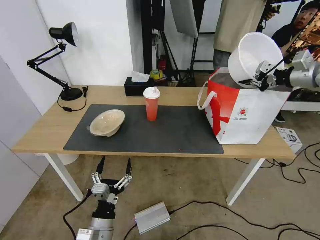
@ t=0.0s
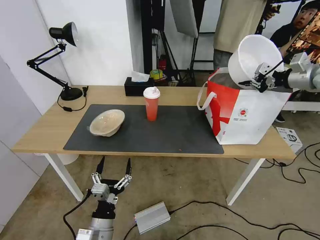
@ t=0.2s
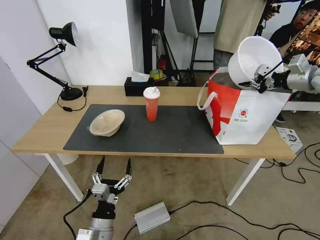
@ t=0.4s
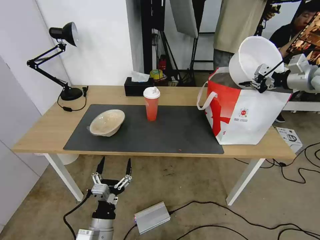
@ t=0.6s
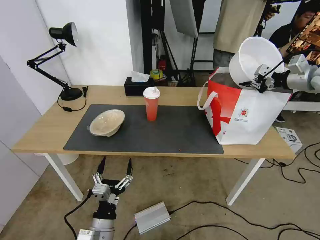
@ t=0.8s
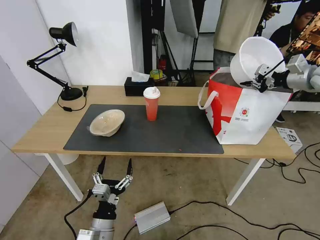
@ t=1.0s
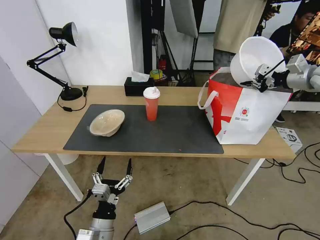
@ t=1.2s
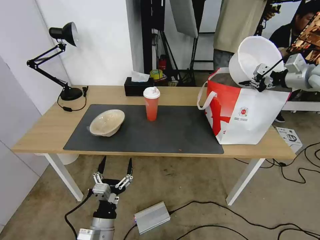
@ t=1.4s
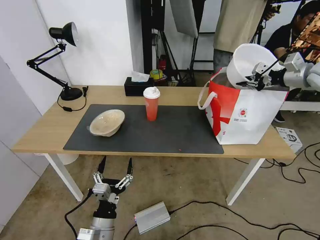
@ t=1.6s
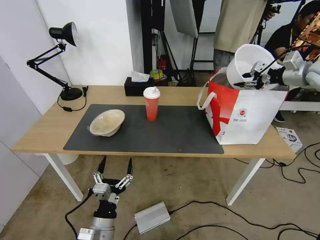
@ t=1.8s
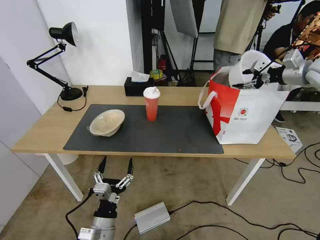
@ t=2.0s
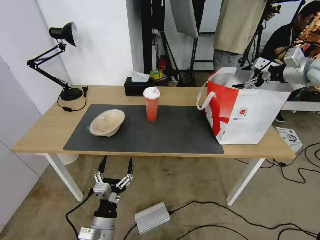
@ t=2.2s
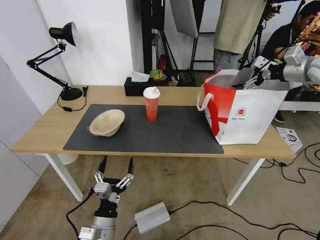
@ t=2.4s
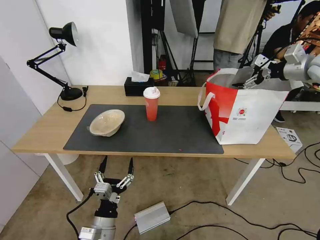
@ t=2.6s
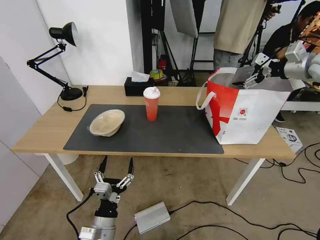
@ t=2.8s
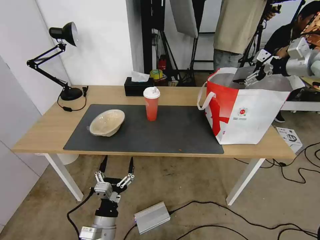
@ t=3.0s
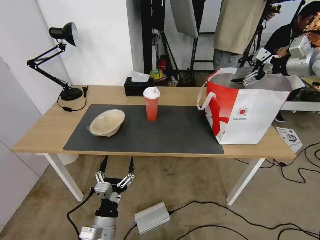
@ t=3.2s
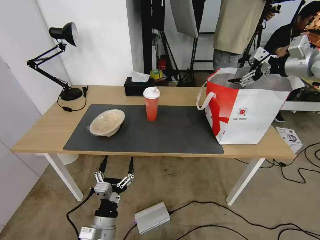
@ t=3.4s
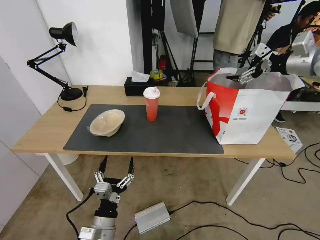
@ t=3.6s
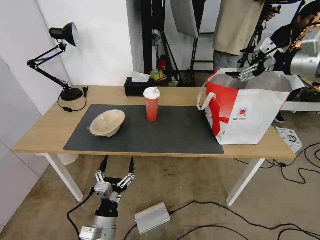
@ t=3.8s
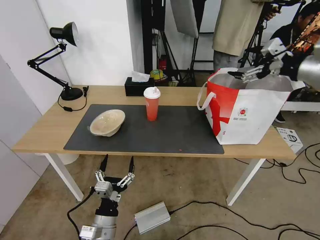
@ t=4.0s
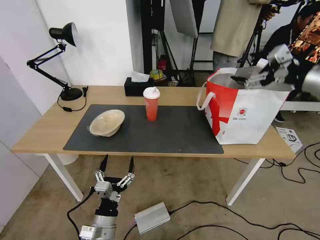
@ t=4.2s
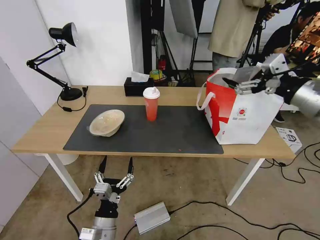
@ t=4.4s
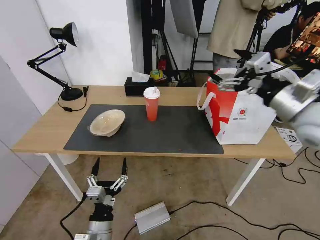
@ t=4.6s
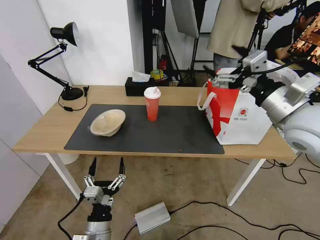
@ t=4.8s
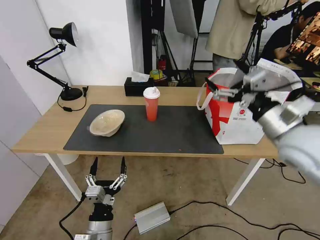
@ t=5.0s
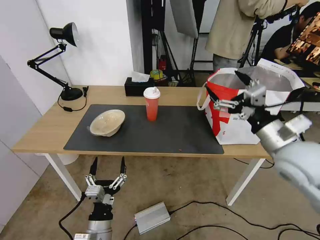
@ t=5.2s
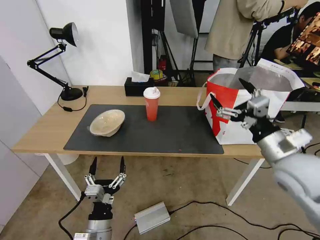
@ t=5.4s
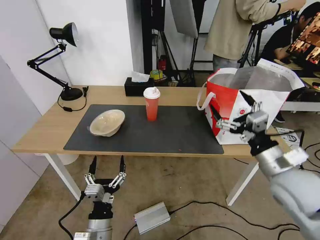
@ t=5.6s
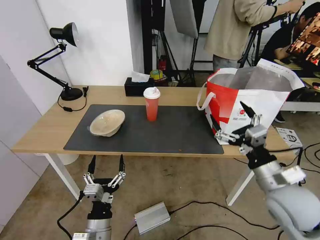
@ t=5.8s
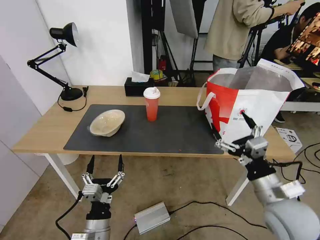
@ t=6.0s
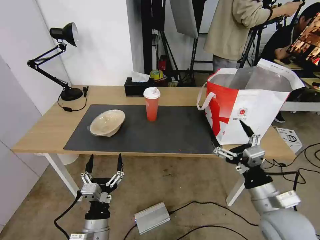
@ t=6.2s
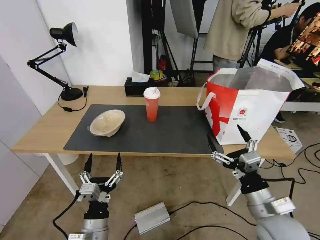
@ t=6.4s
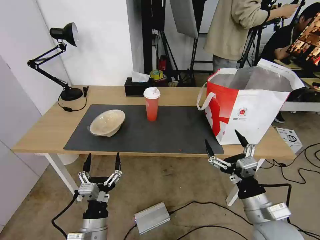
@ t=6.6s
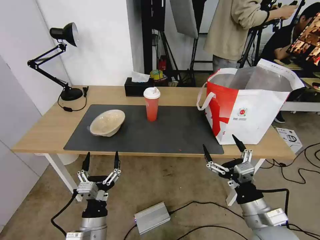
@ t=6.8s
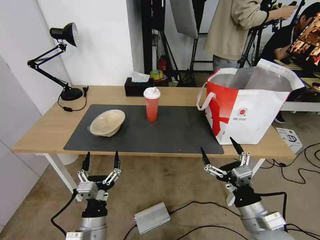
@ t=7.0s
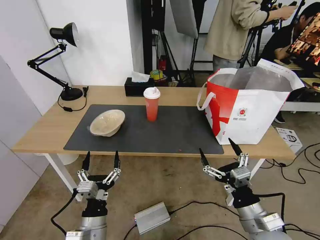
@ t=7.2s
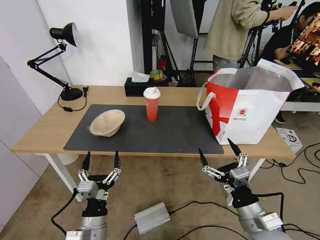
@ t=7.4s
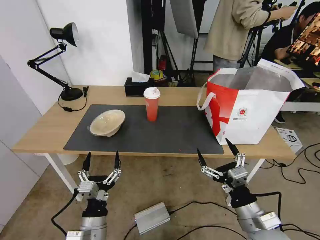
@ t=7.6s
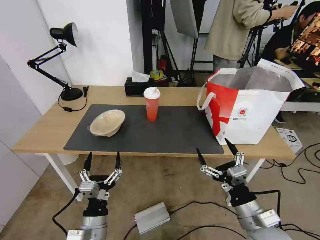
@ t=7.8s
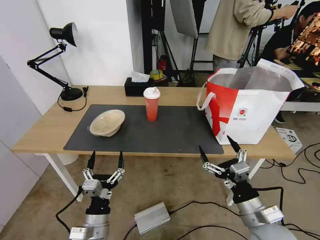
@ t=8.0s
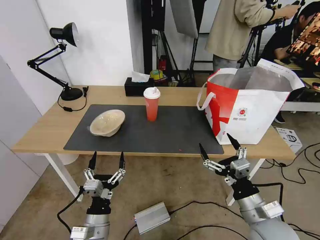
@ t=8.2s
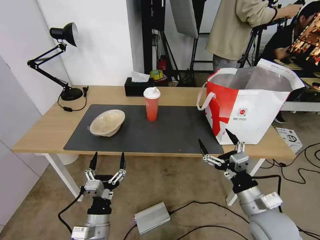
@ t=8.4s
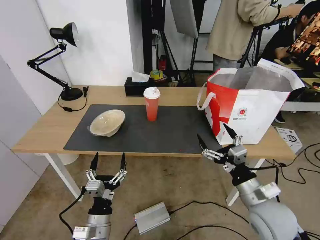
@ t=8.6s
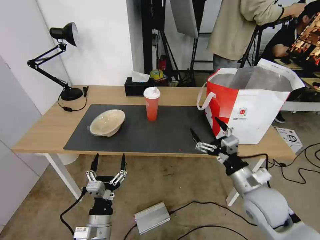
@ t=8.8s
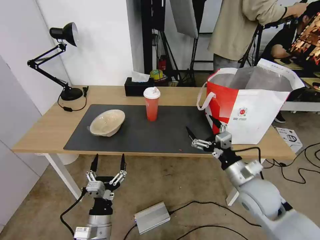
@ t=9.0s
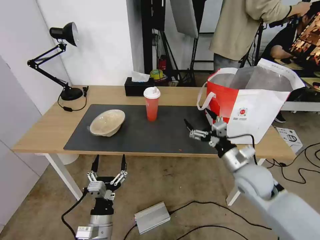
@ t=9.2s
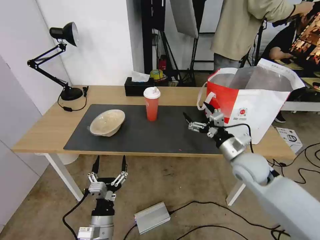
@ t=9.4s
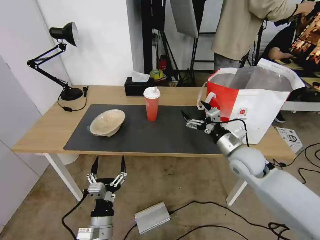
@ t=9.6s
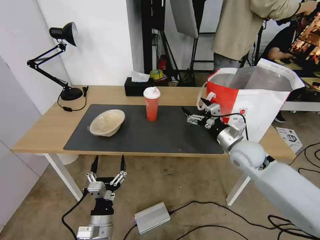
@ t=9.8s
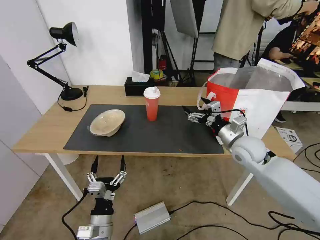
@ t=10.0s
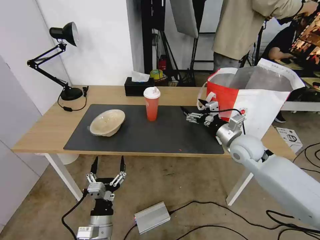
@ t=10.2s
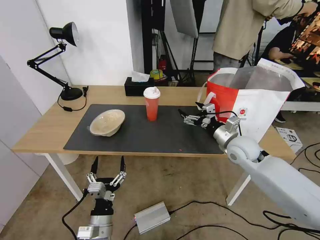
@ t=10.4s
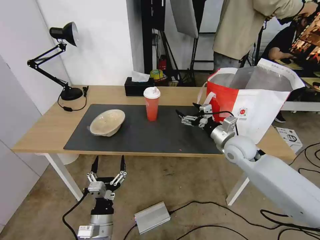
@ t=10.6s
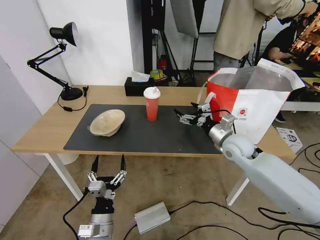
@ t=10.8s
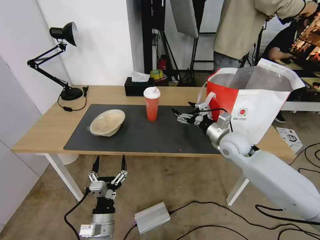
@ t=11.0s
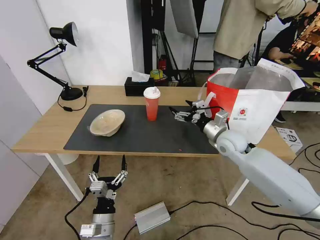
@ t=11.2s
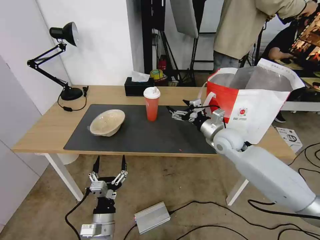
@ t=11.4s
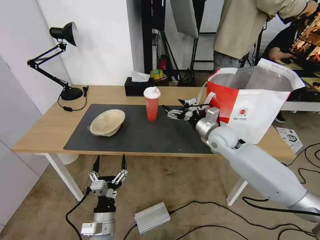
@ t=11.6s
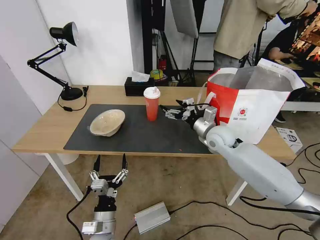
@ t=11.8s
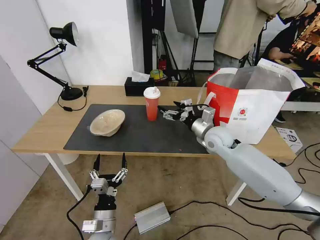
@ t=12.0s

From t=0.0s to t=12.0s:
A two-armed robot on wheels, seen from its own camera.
Task of the whole recording: Pick up the trash from the table and place it into the takeout bag.
From t=0.0s to t=1.6s: The grippers move only a little.
From t=1.6s to t=3.0s: The right gripper opens its fingers.
From t=3.0s to t=4.4s: The right gripper is displaced backward and to the left by some 20 cm.
From t=4.4s to t=6.0s: The right gripper goes some 25 cm downward, backward and to the left.
From t=6.0s to t=7.6s: The right gripper goes some 5 cm downward.
From t=7.6s to t=9.0s: The right gripper shifts roughly 10 cm forward.
From t=9.0s to t=10.4s: The right gripper is displaced forward by some 15 cm.
From t=10.4s to t=12.0s: The right gripper shifts about 5 cm to the left.

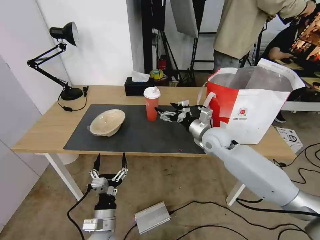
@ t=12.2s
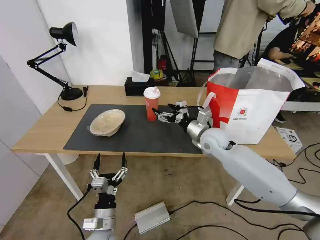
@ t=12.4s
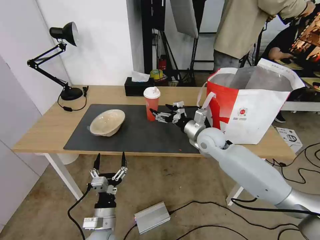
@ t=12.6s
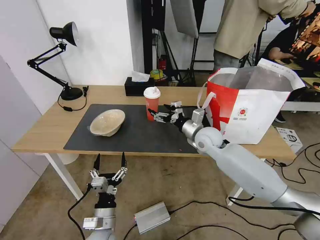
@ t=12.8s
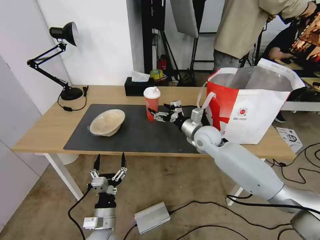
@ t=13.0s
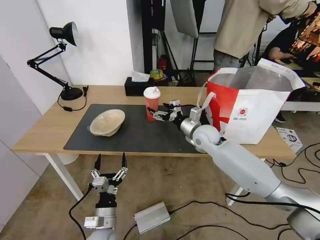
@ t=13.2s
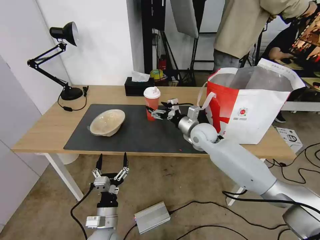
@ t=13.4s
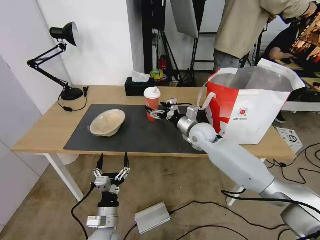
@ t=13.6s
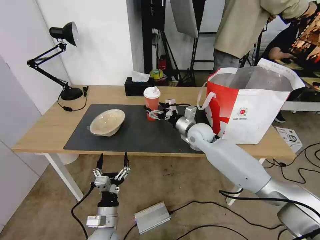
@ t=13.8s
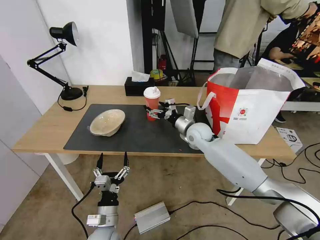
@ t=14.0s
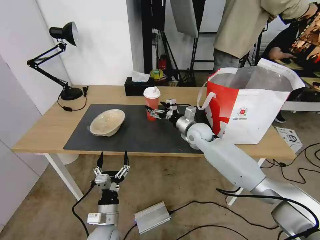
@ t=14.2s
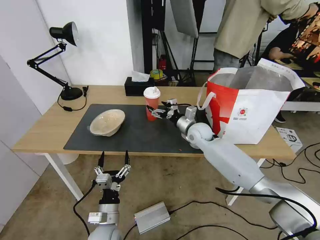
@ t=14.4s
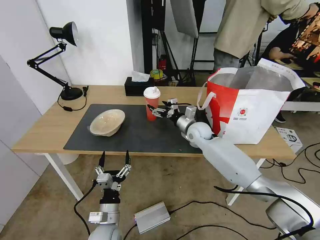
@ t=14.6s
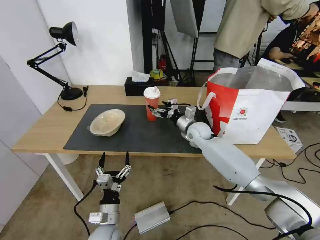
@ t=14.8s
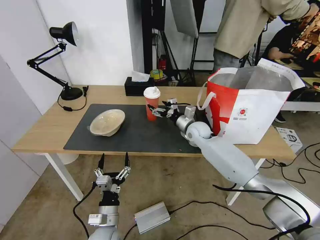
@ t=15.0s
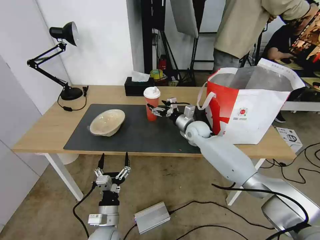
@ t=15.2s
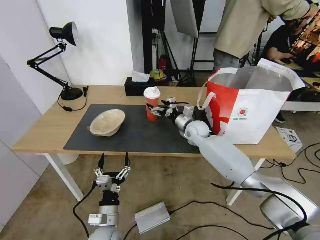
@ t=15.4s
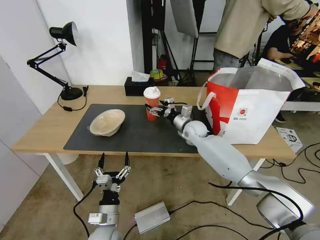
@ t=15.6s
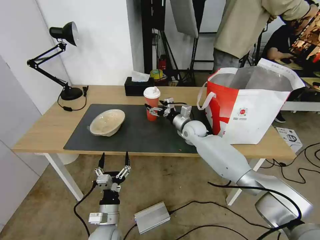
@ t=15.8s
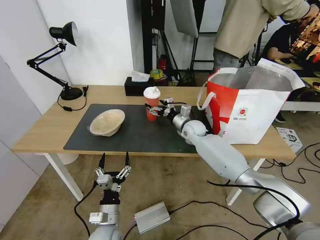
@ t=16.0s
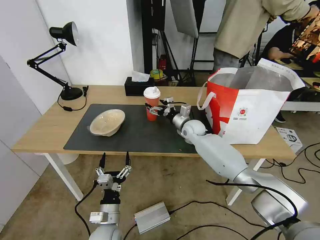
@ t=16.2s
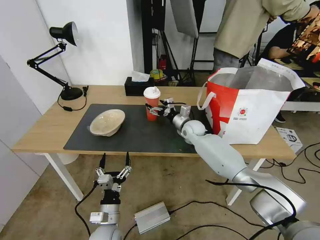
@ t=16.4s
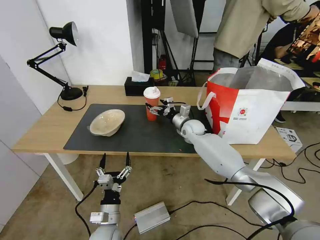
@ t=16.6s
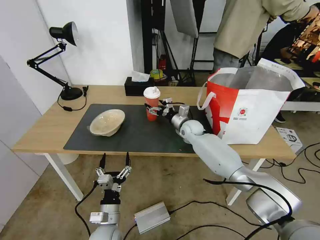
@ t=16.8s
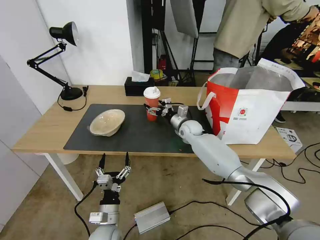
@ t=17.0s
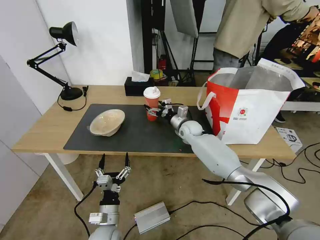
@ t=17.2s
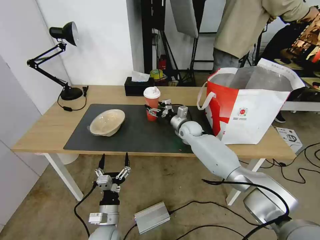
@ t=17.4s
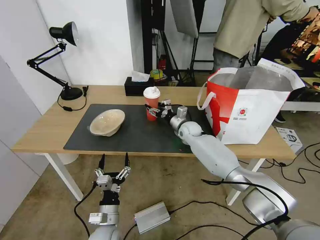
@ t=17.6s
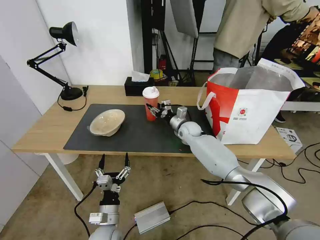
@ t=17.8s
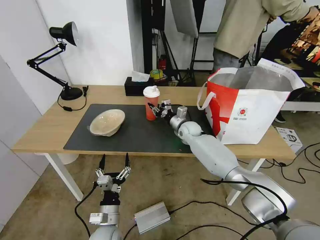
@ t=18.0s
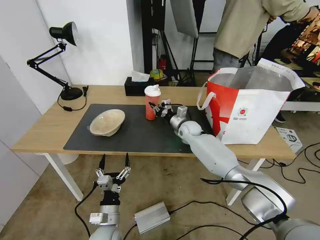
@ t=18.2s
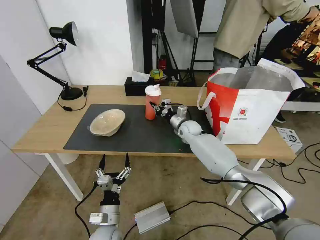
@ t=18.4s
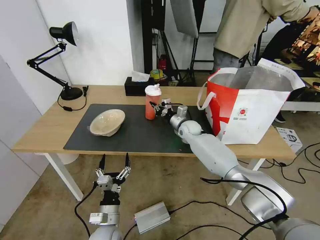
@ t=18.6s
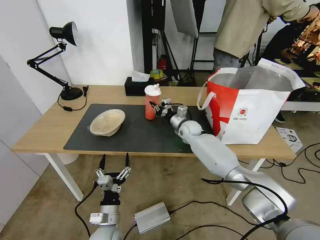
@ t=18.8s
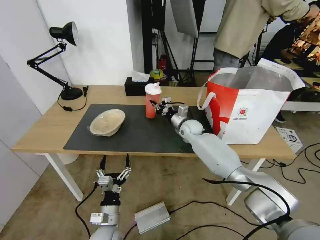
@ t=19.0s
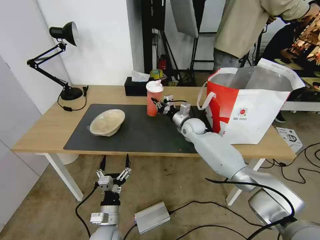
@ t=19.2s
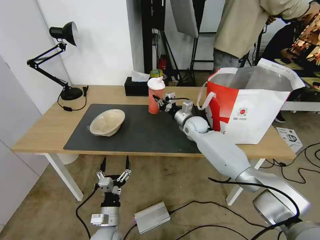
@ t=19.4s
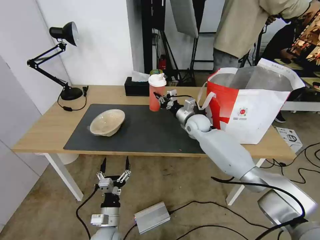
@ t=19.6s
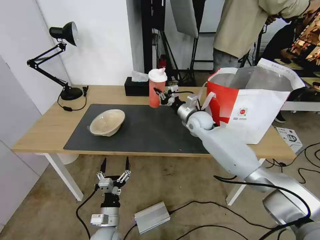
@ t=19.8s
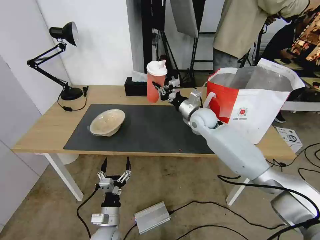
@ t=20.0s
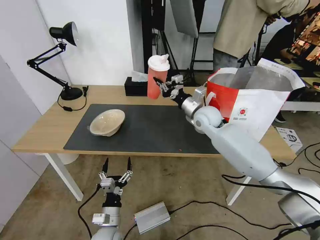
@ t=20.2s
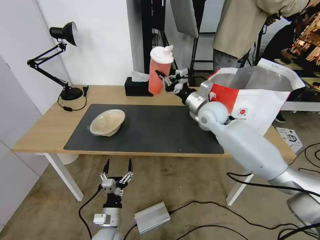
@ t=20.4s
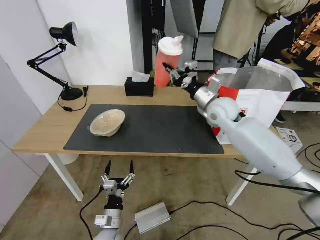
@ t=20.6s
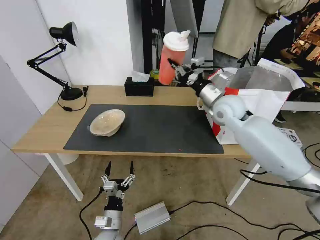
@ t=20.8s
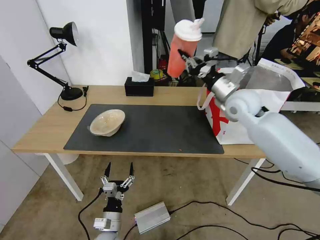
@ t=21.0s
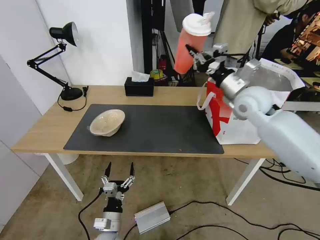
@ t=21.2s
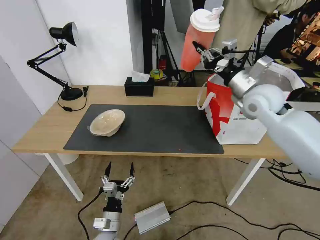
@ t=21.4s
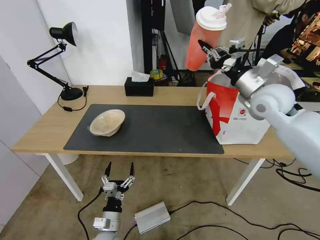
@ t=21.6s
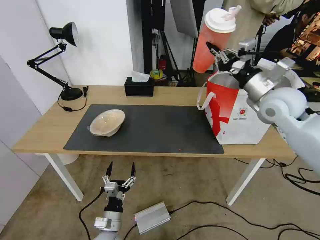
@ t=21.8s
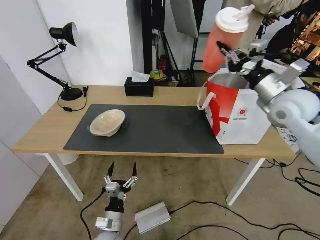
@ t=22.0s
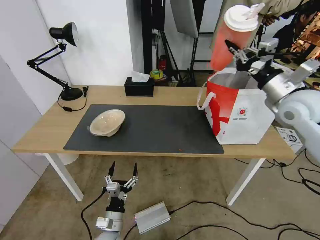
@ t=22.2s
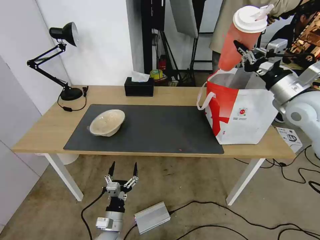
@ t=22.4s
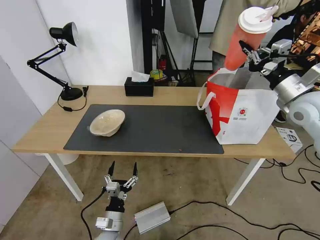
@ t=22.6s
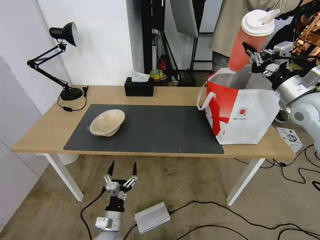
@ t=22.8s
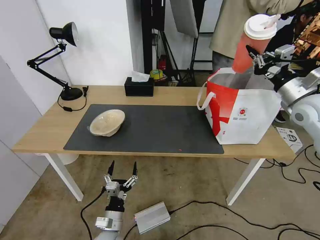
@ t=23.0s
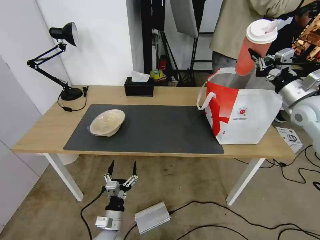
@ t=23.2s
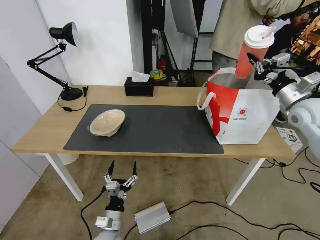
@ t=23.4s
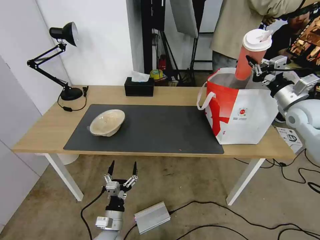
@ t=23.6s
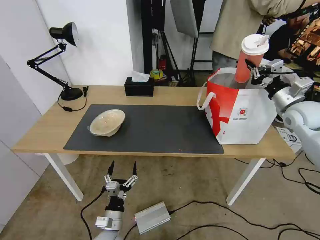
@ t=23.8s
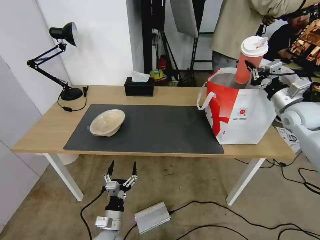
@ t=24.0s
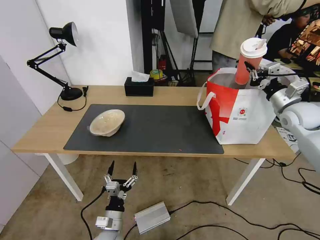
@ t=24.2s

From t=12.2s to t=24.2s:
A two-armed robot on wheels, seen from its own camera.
Task of the whole recording: Pick up the trash from the table and place it into the takeout bag.
From t=12.2s to t=13.8s: The right gripper ends up roughly 5 cm from where it was.
From t=13.8s to t=15.2s: The right gripper changes place by roughly 5 cm.
From t=15.2s to t=16.6s: The grippers make only small movements.
From t=16.6s to t=18.2s: The right gripper closes its fingers.
From t=18.2s to t=19.8s: The right gripper goes roughly 10 cm upward.
From t=19.8s to t=21.2s: The right gripper goes roughly 20 cm upward, to the right and backward.
From t=21.2s to t=22.6s: The right gripper heads to the right and backward, covering about 15 cm.
From t=22.6s to t=24.2s: The right gripper moves downward and forward, some 10 cm.
